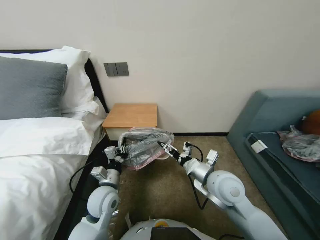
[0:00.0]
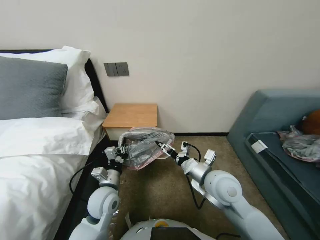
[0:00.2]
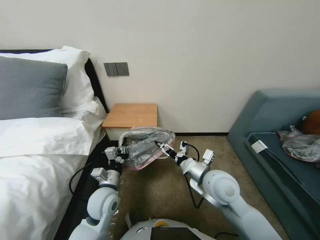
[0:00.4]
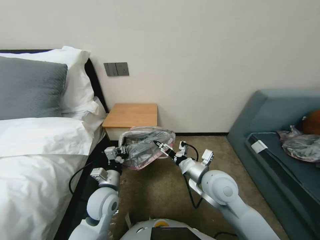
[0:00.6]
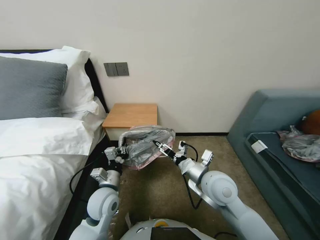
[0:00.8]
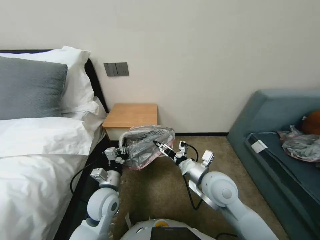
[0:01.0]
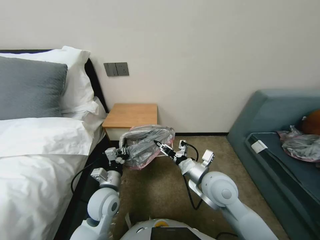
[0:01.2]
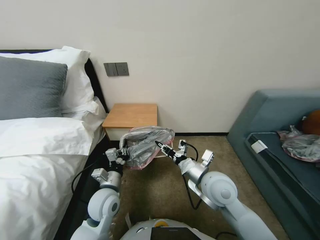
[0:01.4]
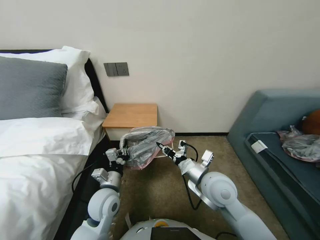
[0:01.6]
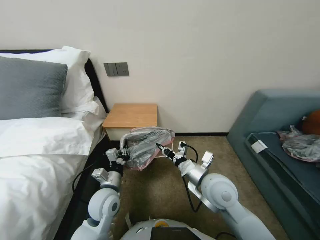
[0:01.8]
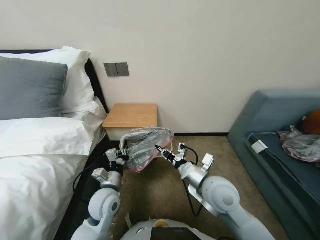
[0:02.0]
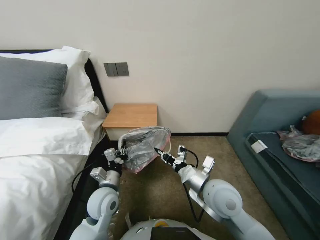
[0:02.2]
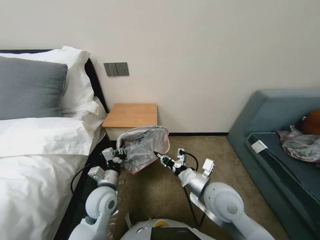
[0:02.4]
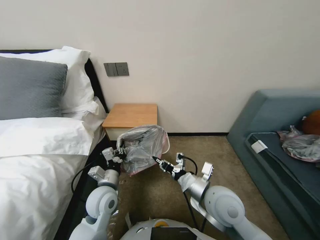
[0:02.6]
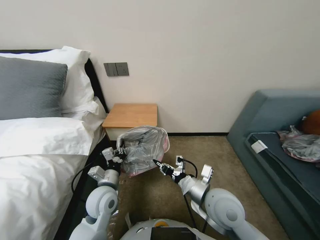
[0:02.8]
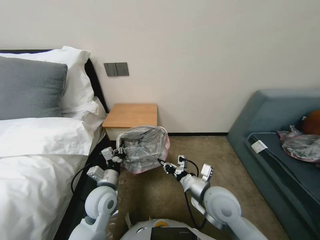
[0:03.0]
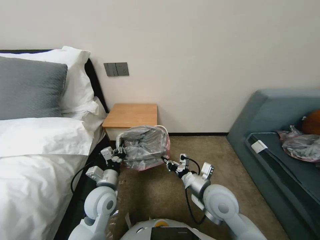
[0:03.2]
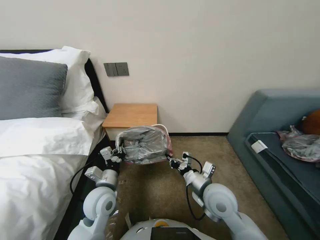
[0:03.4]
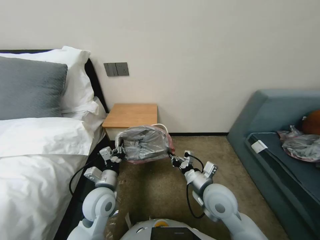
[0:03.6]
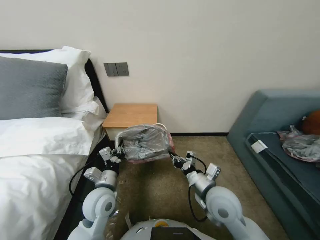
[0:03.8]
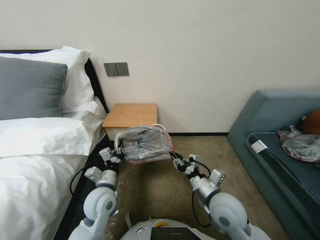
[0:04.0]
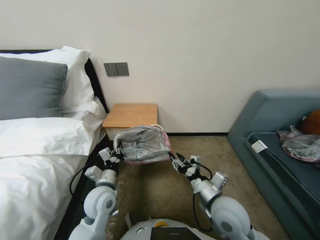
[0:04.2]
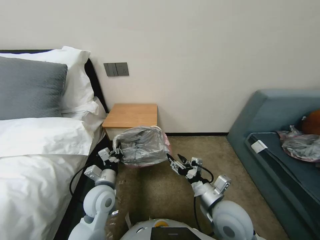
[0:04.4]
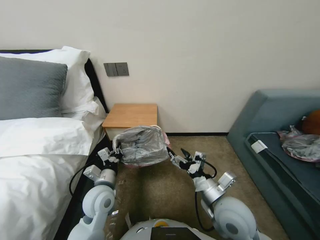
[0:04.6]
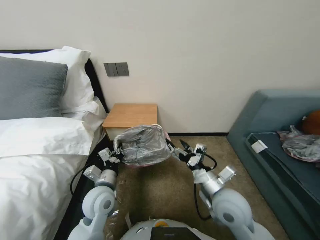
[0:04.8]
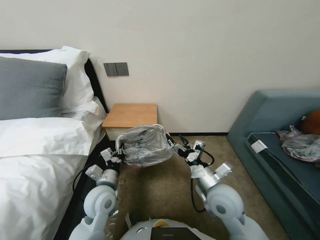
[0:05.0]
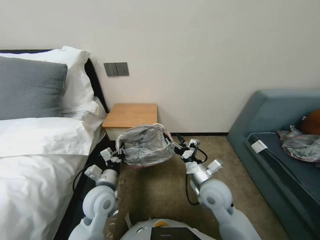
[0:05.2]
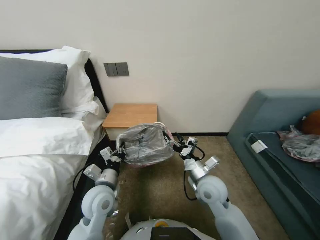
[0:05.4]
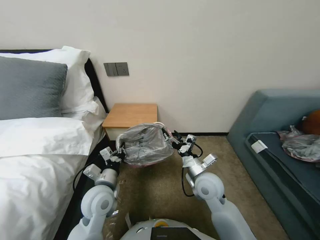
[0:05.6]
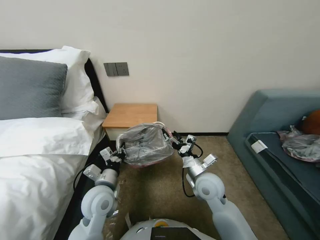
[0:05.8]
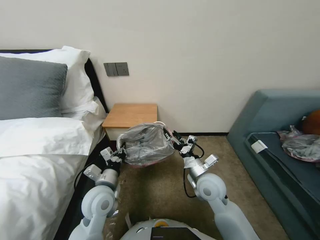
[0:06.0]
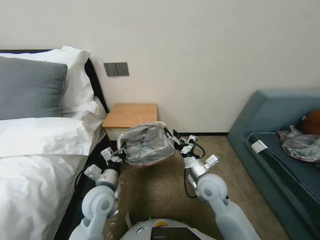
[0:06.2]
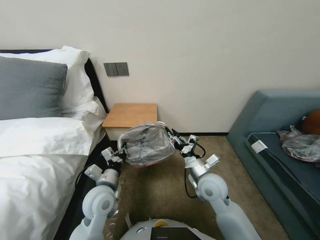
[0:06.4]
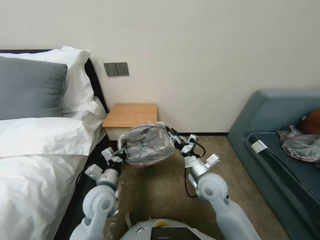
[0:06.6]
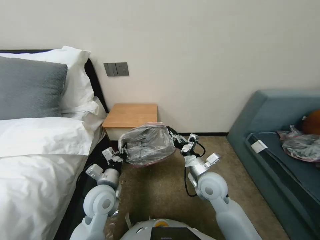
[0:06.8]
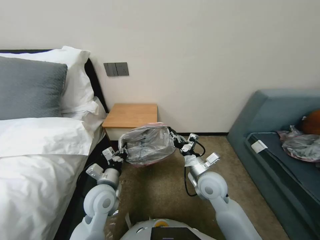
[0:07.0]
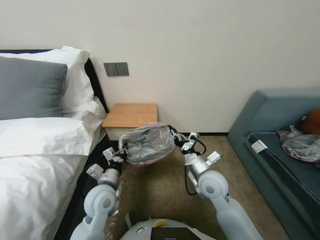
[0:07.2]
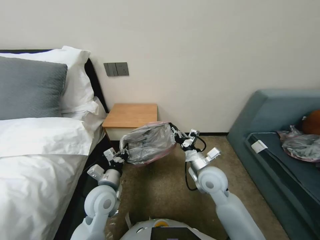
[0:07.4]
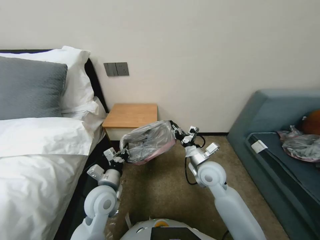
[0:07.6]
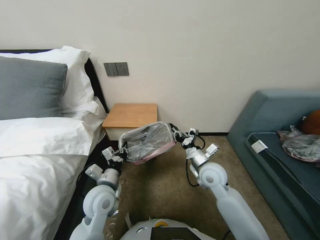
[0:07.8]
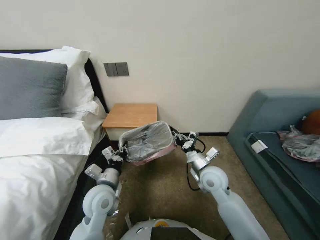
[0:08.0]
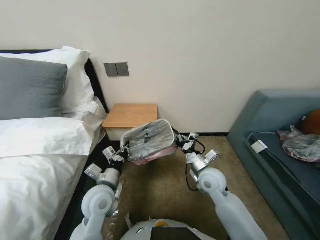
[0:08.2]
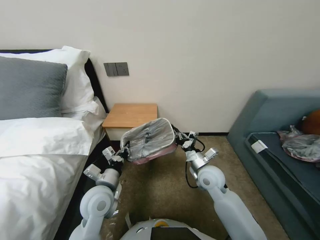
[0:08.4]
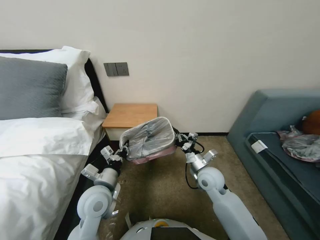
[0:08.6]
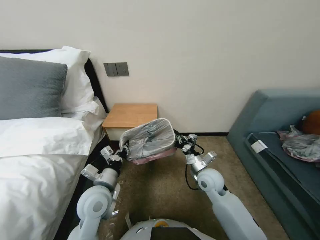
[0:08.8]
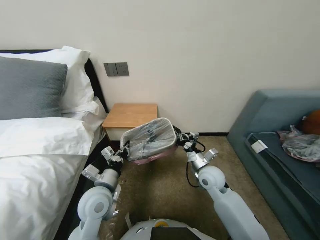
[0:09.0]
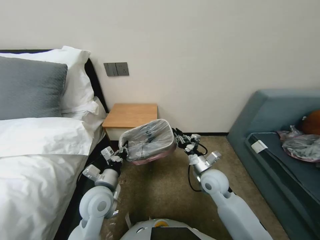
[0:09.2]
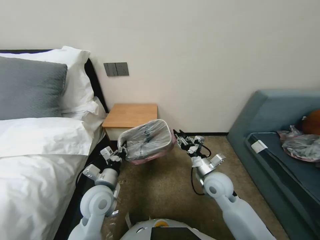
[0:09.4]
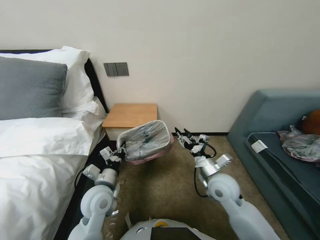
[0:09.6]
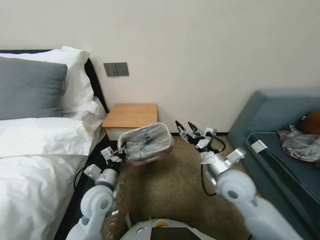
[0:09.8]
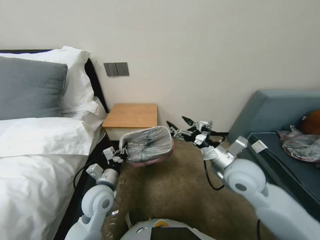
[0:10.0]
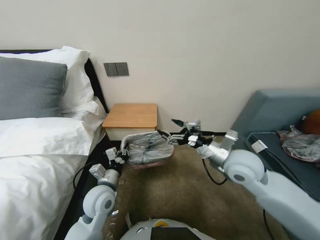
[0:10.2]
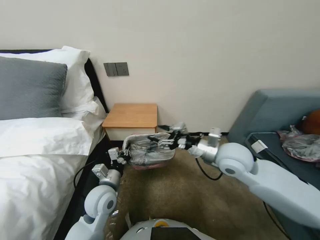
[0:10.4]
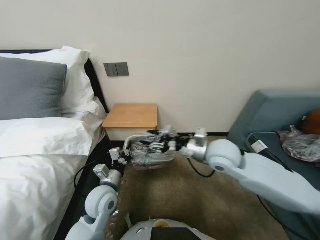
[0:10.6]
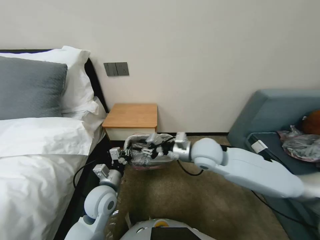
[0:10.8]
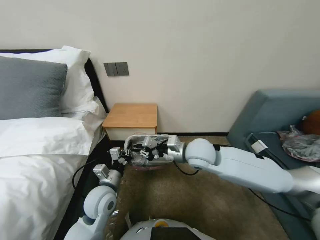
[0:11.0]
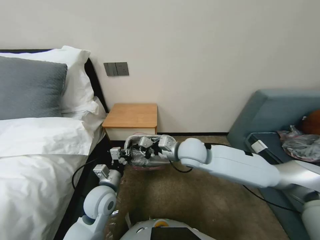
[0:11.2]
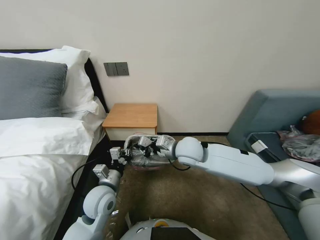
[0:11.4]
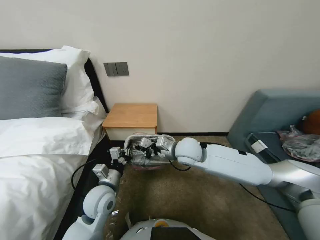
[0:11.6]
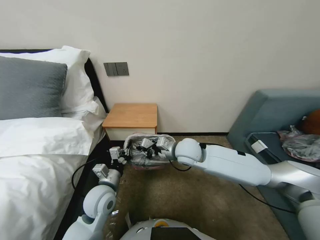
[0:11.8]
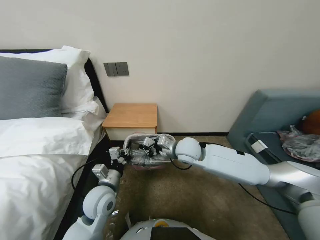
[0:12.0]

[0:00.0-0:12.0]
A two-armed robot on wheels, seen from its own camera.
Task of the whole recording: Pick up the garbage bag from the table and place it over the trash can.
0:00.0 to 0:01.6: The right gripper closes.
0:01.6 to 0:03.0: The grippers make only small movements.
0:03.0 to 0:04.4: The right gripper opens up.
0:04.4 to 0:06.0: The right gripper goes roughly 10 cm forward.
0:06.0 to 0:07.6: The right gripper closes up.
0:07.6 to 0:09.0: The grippers stay close to where they were, moving slightly.
0:09.0 to 0:10.4: The right gripper heads upward, covering approximately 15 cm, and opens up.
0:10.4 to 0:12.0: The right gripper heads to the left and forward, covering about 15 cm, and closes up.

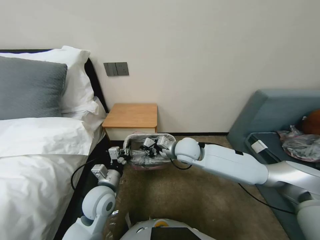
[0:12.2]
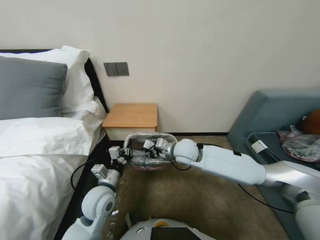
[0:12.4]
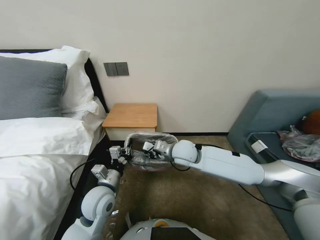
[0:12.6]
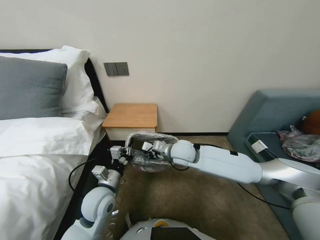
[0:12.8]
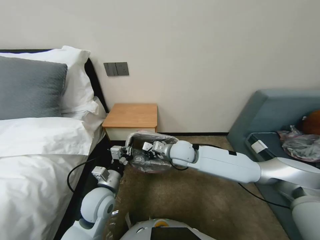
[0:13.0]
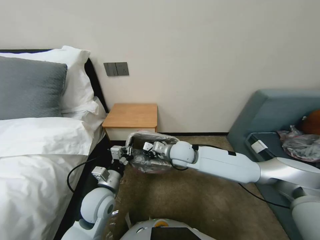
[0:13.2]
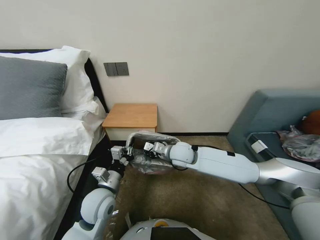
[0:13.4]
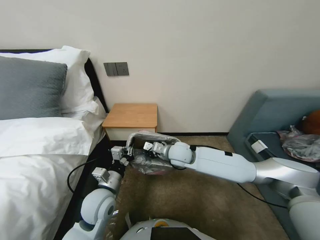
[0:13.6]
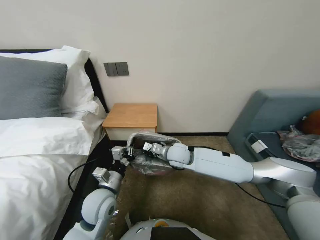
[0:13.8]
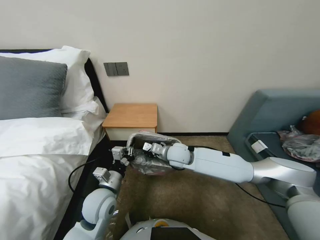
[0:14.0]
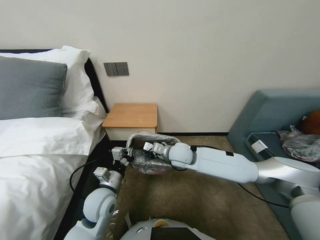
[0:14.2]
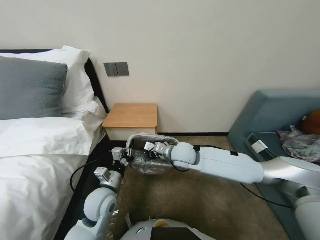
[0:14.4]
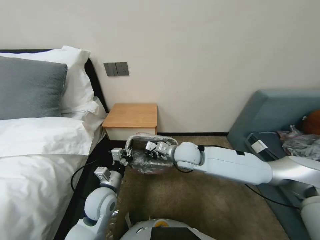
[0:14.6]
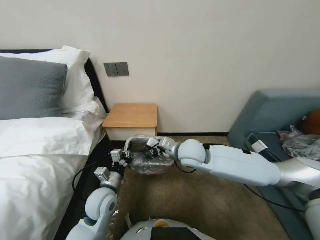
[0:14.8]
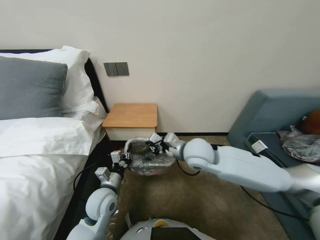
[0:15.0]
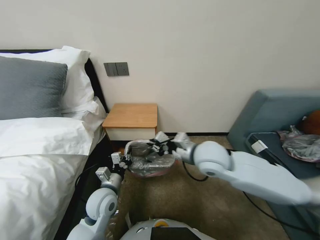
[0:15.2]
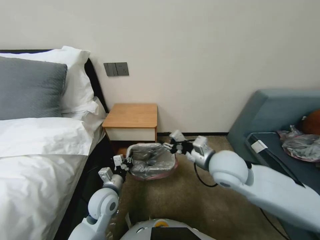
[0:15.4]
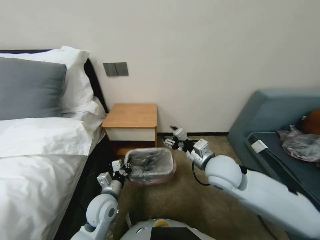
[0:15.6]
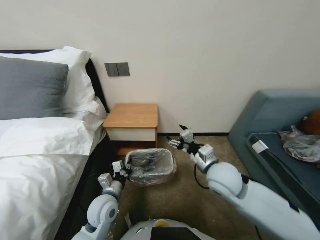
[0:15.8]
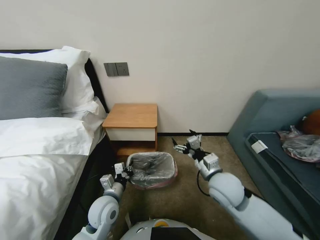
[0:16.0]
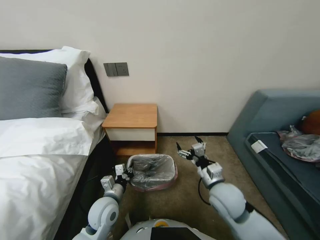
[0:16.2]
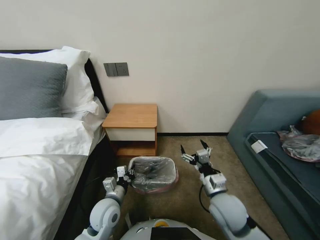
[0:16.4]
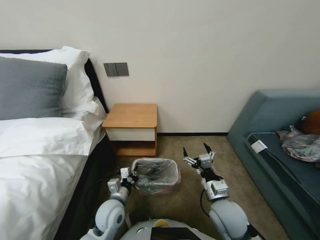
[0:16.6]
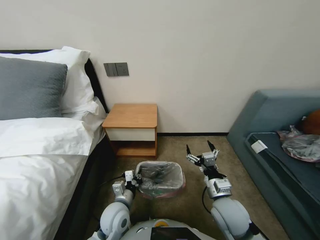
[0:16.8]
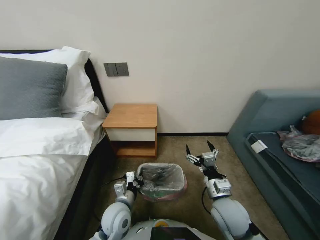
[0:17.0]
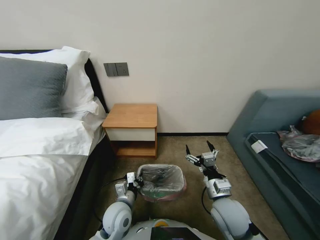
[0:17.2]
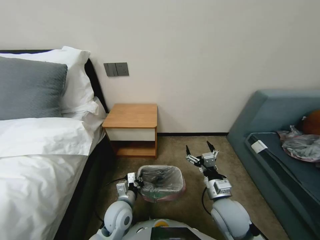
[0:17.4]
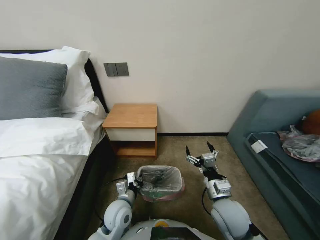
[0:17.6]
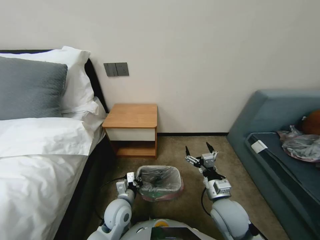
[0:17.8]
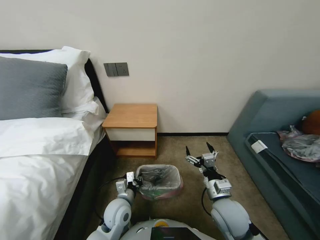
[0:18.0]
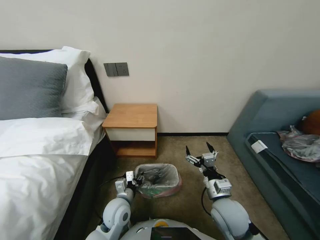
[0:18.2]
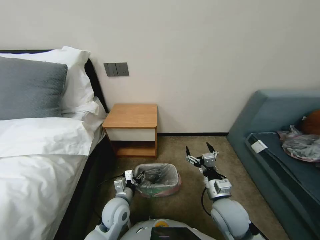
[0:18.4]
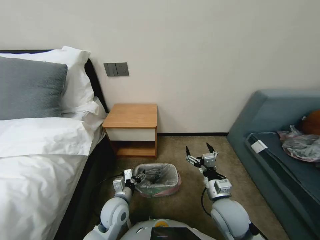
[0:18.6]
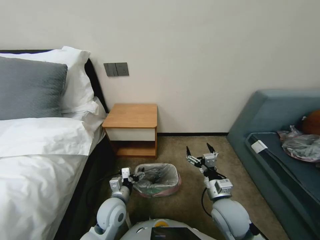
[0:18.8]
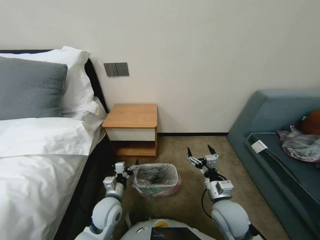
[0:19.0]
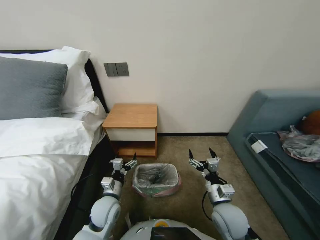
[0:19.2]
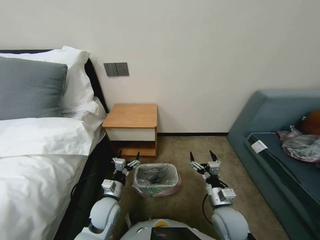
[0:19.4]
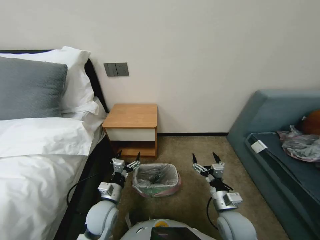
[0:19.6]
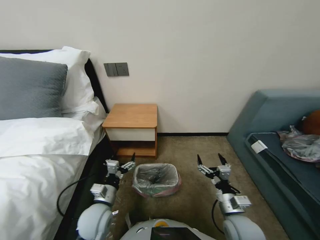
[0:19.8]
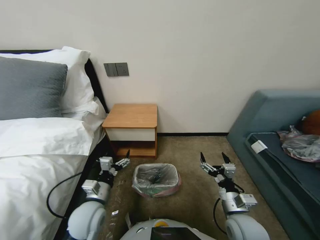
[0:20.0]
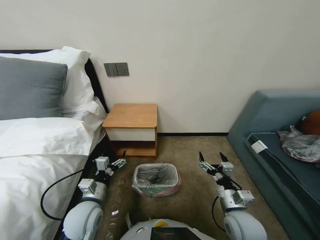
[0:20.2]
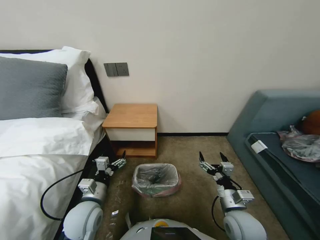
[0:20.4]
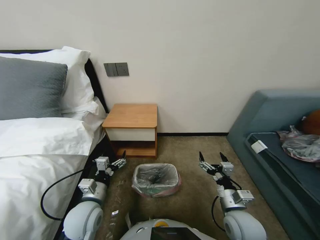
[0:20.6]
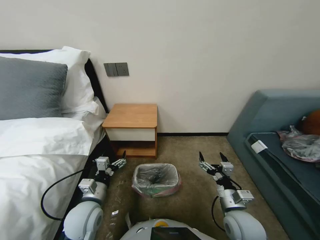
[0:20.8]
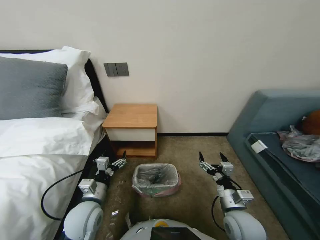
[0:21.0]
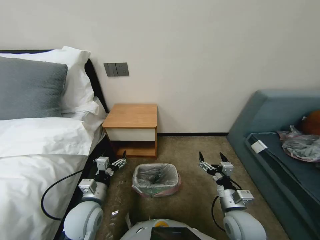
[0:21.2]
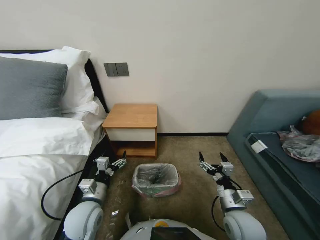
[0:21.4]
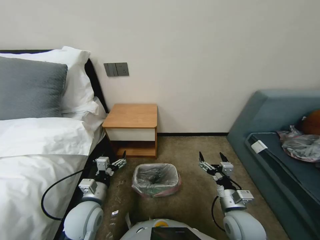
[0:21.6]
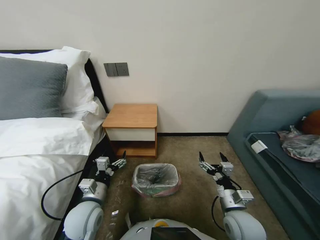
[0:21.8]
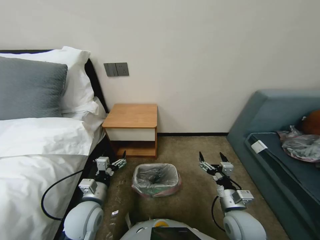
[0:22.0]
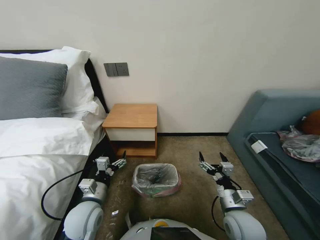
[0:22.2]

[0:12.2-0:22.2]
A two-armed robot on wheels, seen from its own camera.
Task of the whole recording: Pick up the garbage bag from the table and place it over the trash can.
0:12.2 to 0:13.6: The grippers stay close to where they were, moving slightly.
0:13.6 to 0:15.0: The right gripper travels upward by roughly 5 cm.
0:15.0 to 0:16.4: The right gripper goes some 20 cm backward, downward and to the right, and opens.
0:16.4 to 0:18.0: The left gripper ends up some 5 cm from where it was.
0:18.0 to 0:19.4: The left gripper opens its fingers.
0:19.4 to 0:20.8: The left gripper is displaced upward by some 5 cm.
0:20.8 to 0:22.2: Neither gripper changes place.
